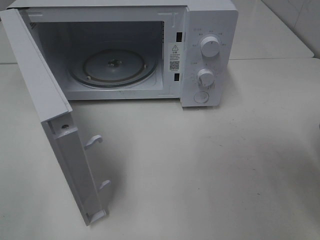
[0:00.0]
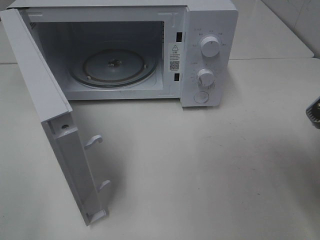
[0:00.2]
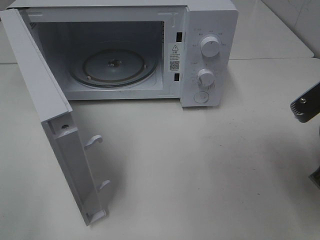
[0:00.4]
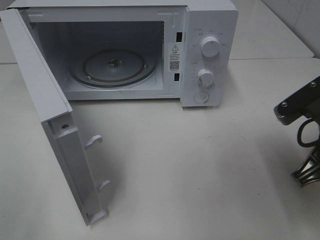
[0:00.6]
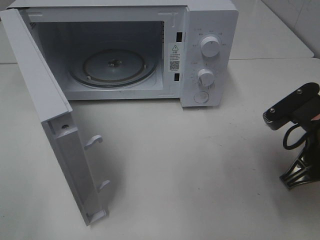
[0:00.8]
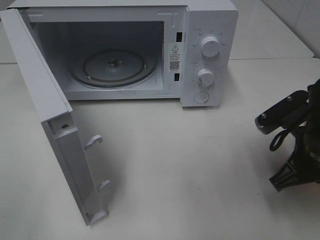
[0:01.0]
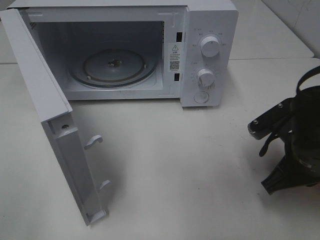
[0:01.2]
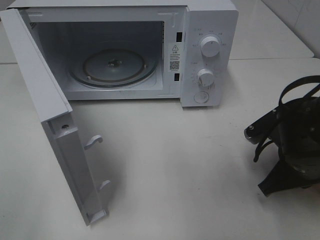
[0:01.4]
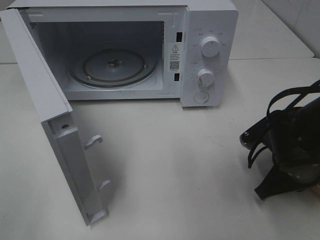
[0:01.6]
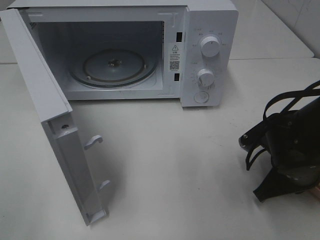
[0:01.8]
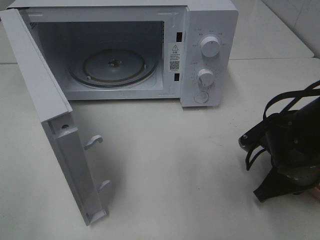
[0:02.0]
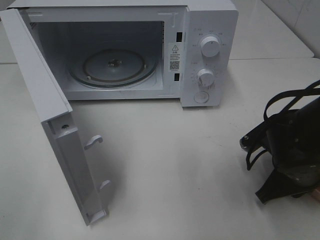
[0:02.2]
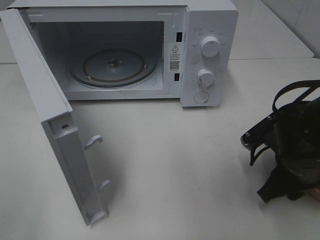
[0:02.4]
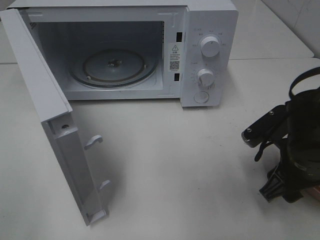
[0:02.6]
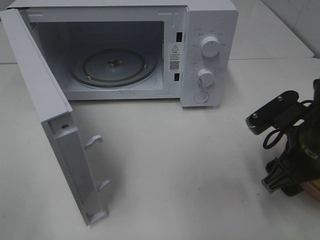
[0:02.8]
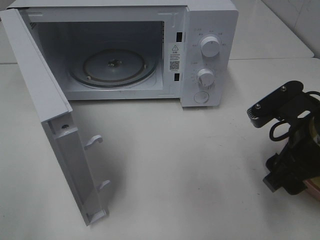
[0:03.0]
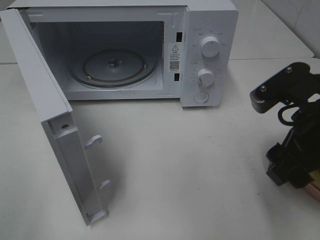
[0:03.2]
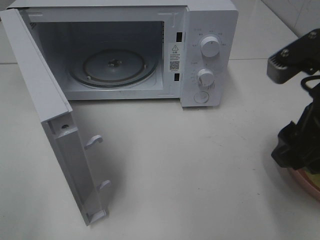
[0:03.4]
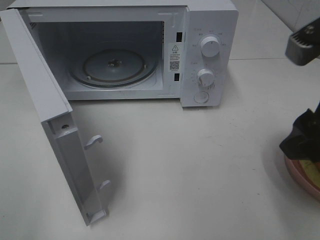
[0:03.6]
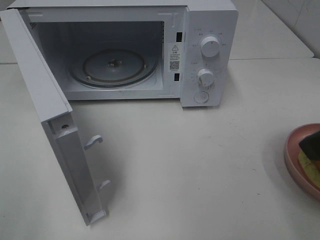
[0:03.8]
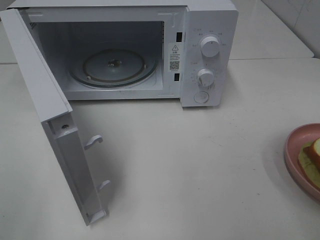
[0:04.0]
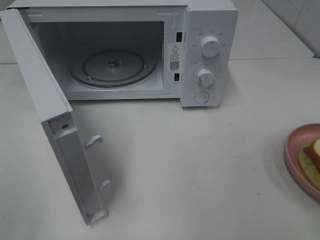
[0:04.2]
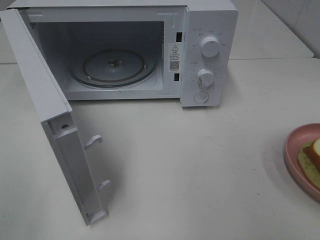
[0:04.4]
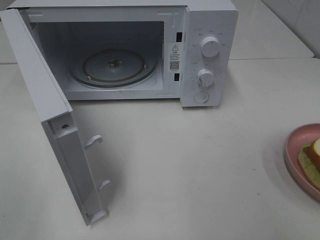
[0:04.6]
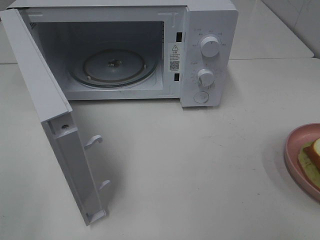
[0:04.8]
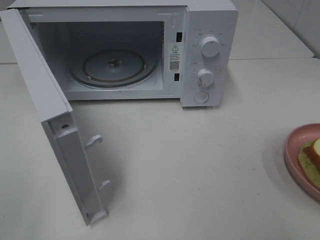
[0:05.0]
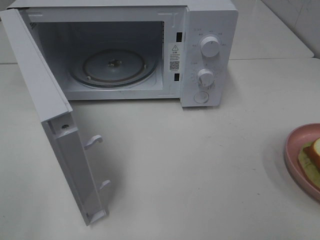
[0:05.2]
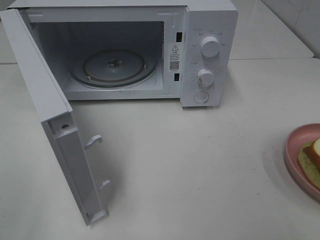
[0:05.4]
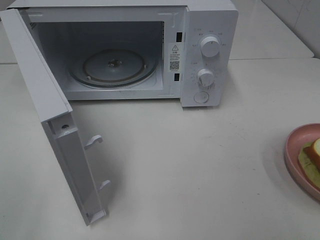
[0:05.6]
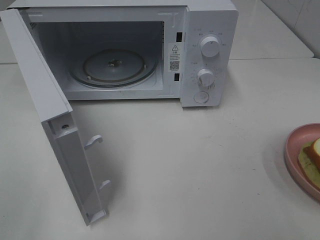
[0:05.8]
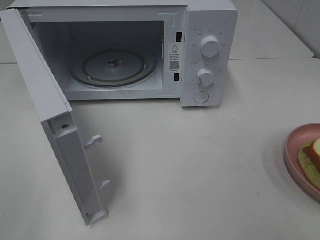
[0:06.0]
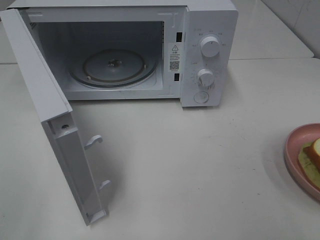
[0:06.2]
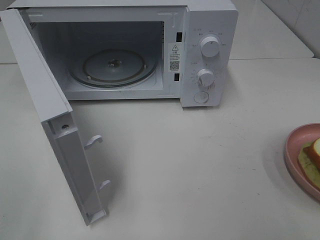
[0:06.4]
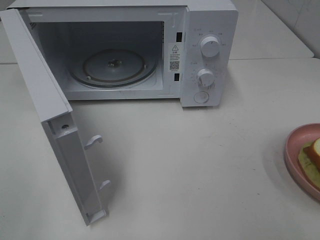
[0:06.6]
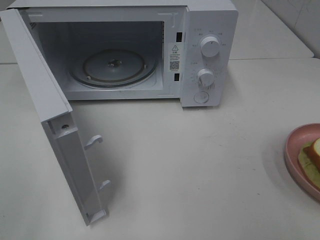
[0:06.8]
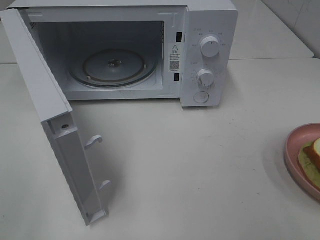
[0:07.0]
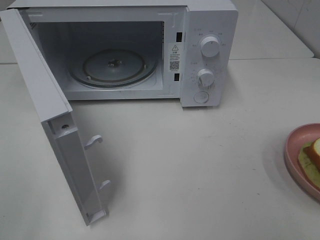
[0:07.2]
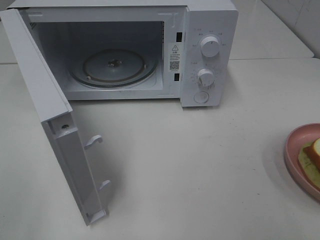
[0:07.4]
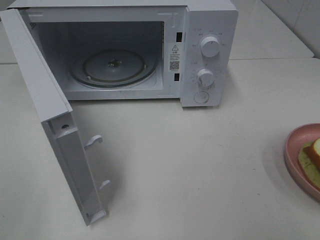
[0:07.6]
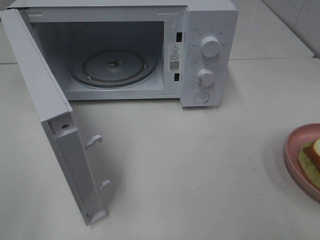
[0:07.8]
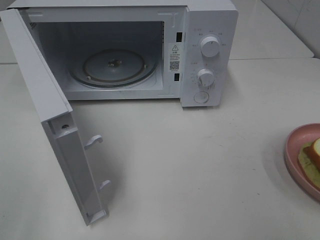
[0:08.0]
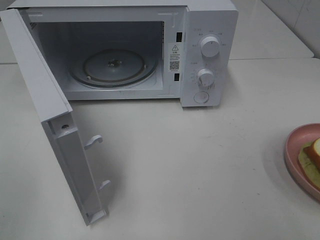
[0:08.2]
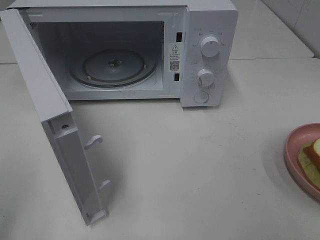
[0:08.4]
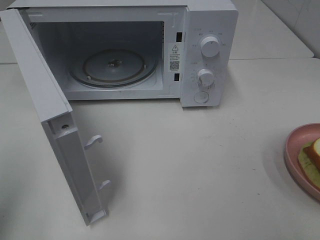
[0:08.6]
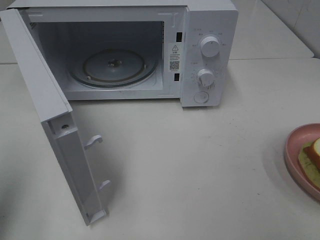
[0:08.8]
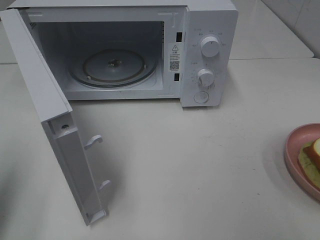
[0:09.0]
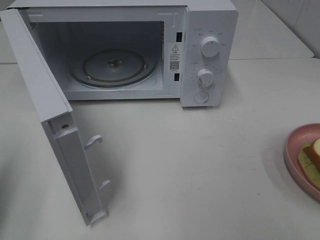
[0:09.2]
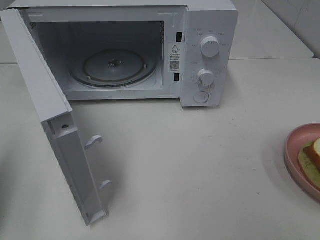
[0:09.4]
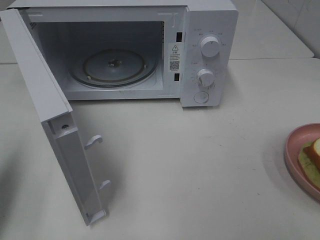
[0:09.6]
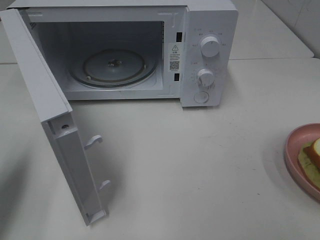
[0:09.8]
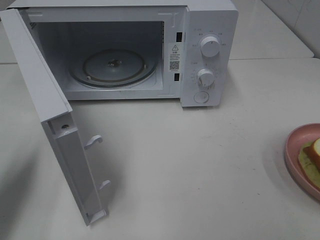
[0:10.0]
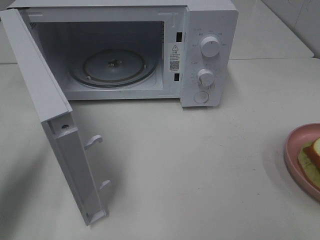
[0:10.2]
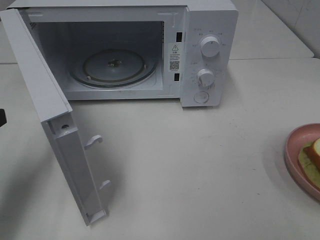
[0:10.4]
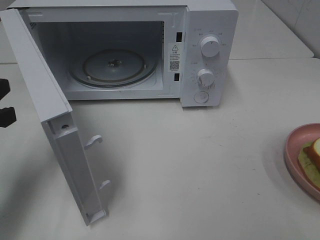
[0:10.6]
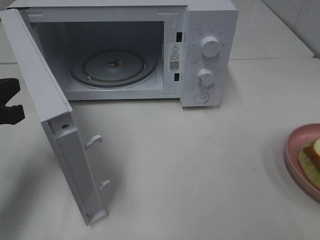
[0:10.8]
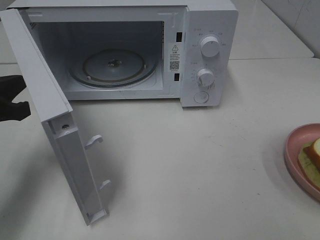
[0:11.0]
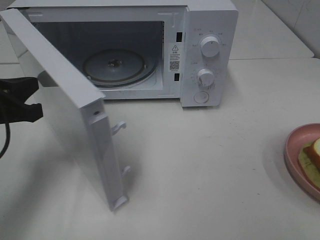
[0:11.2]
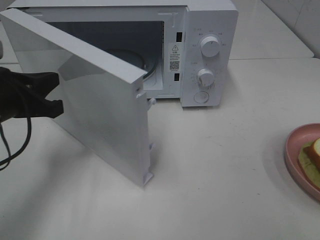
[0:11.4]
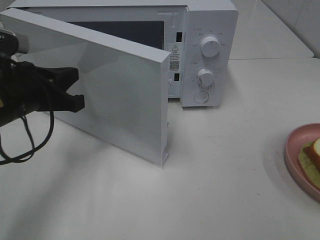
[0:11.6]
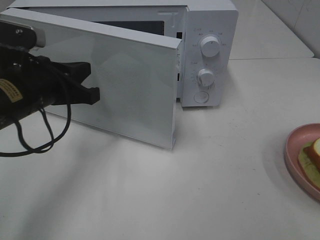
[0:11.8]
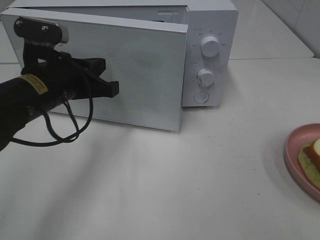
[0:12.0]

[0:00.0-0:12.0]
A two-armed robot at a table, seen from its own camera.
Task of the whole recording: Heat Sandwich.
Step, 0:00.0 to 0:03.2: Right hand: place the plate on the table.
0:00.0 to 0:01.6: The right gripper goes roughly 15 cm downward and forward.
0:01.6 to 0:03.0: The right gripper travels upward by approximately 10 cm, and opens its fingers.
0:03.0 to 0:04.4: The right gripper travels upward, backward and to the right by roughly 20 cm.
0:06.0 to 0:07.6: Both grippers stay put.
0:07.6 to 0:09.0: The left gripper goes about 10 cm forward, and closes.
0:09.0 to 0:10.4: The left gripper goes about 10 cm forward and downward.
0:10.4 to 0:12.0: The left gripper heads to the right and forward, covering about 15 cm.

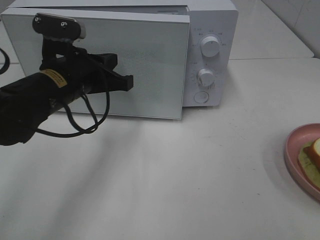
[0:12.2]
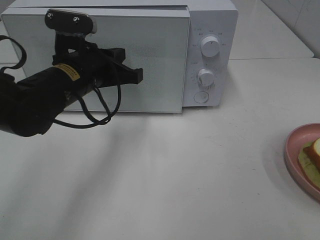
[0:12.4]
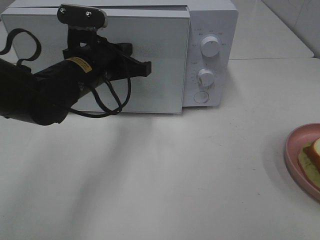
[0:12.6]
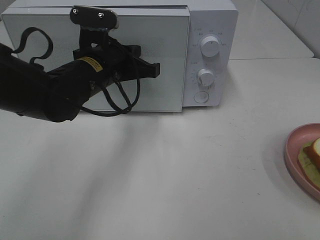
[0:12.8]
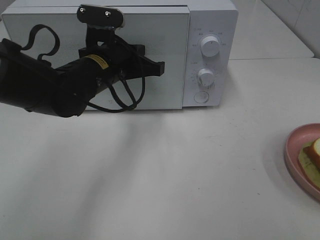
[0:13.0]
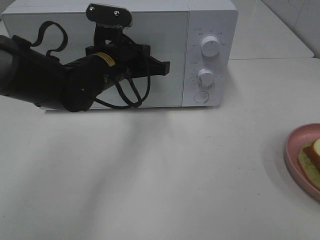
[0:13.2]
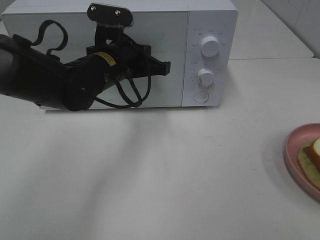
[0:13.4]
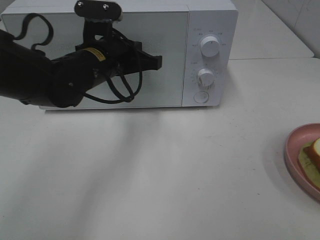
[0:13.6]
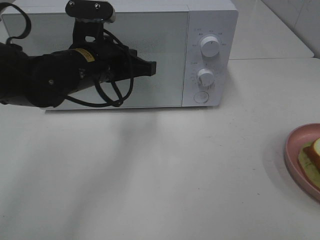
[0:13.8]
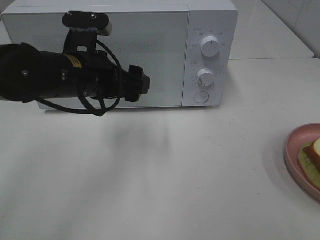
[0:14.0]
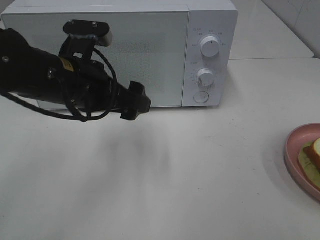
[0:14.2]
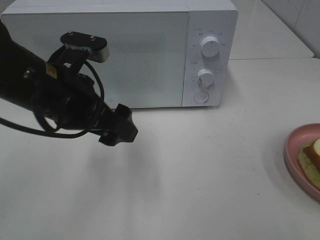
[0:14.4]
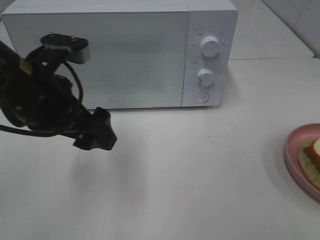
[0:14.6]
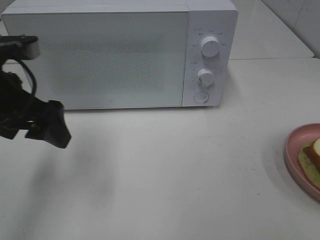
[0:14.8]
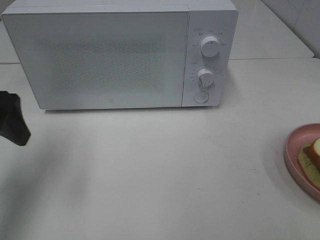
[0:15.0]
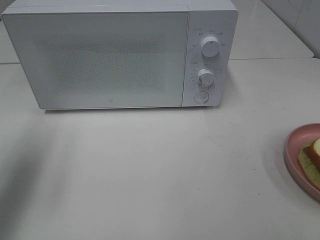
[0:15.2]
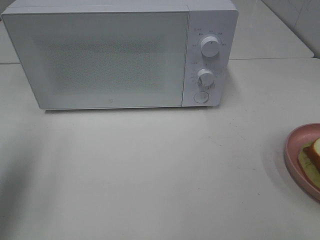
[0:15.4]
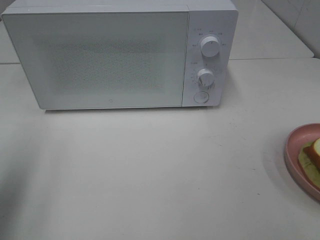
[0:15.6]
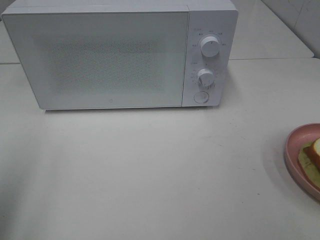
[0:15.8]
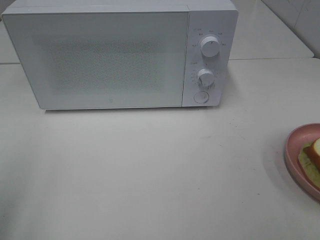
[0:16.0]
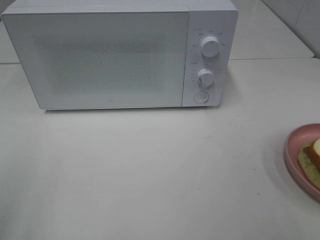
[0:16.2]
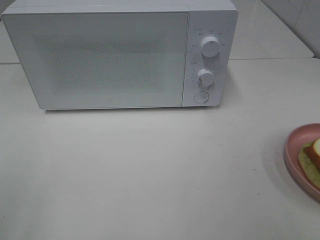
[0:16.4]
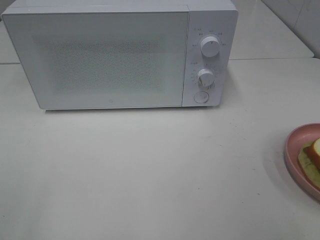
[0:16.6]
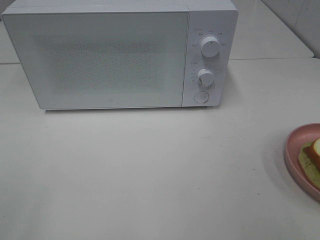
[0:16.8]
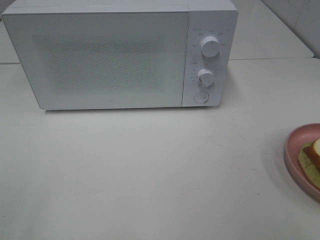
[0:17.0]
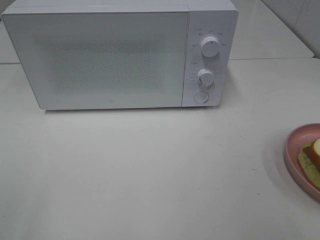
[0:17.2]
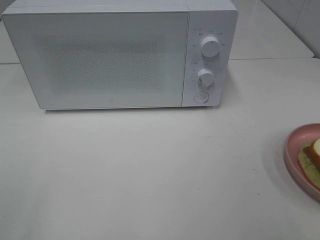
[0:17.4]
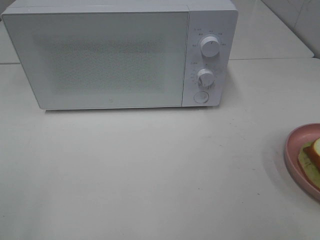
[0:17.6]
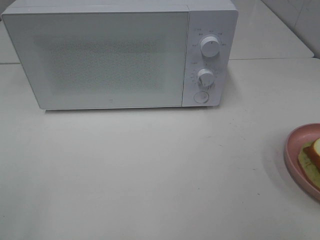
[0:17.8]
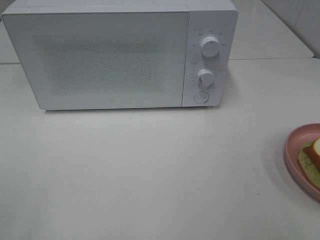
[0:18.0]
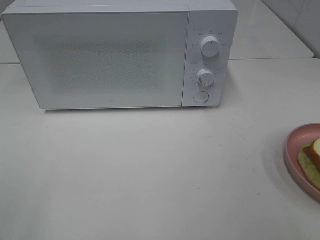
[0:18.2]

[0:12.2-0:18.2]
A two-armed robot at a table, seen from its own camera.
Task of the whole recording: Heat Sandwich.
Step, 0:12.2 to 0:14.2: Left hand: close the microwave door.
0:13.8 to 0:15.2: The left gripper heads to the left and backward, covering about 25 cm, and opens up.
0:15.2 to 0:16.6: The left gripper goes approximately 20 cm backward.
0:16.6 to 0:18.2: Both grippers stay put.
